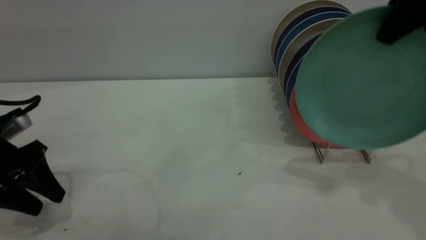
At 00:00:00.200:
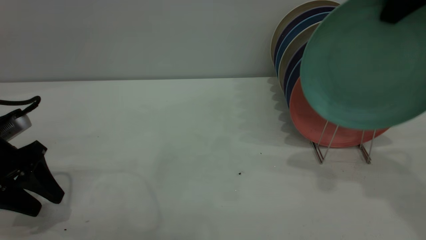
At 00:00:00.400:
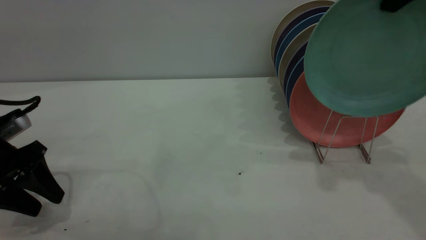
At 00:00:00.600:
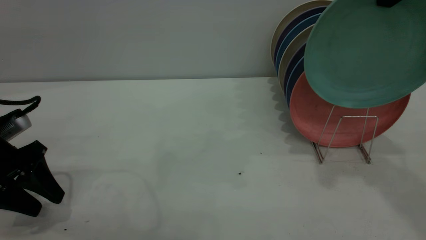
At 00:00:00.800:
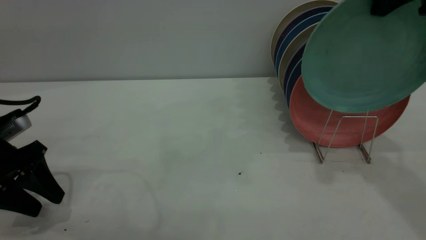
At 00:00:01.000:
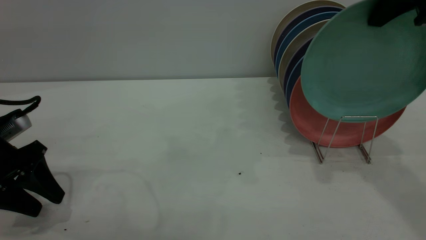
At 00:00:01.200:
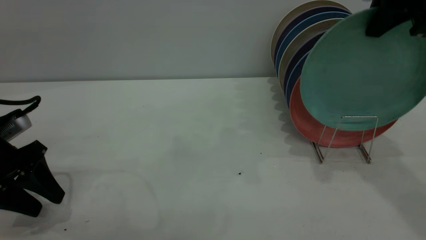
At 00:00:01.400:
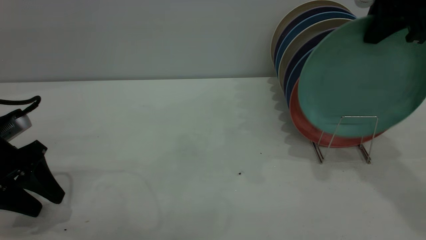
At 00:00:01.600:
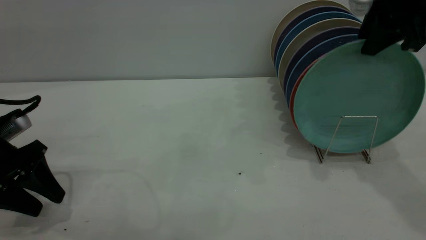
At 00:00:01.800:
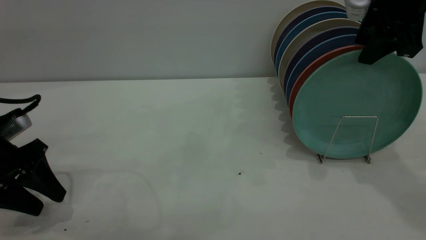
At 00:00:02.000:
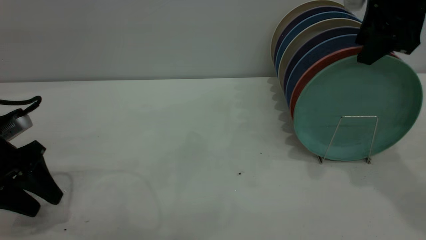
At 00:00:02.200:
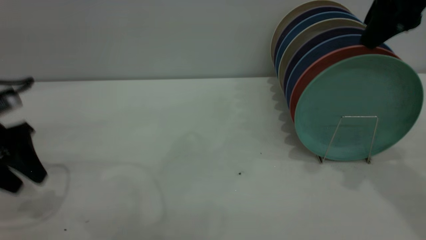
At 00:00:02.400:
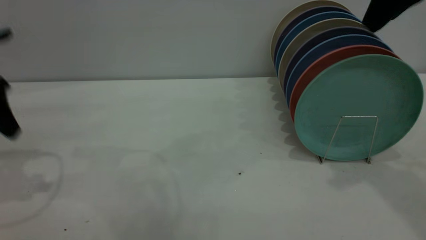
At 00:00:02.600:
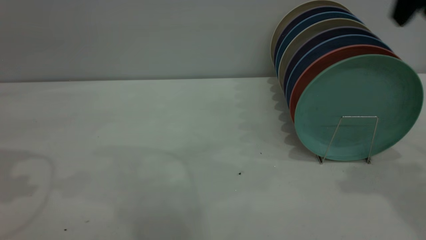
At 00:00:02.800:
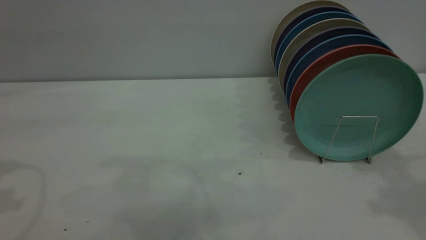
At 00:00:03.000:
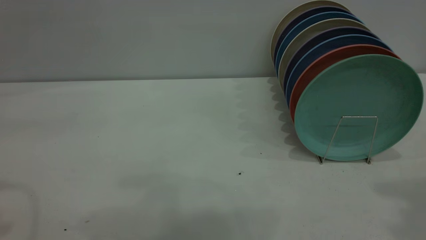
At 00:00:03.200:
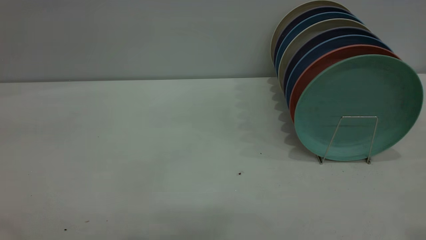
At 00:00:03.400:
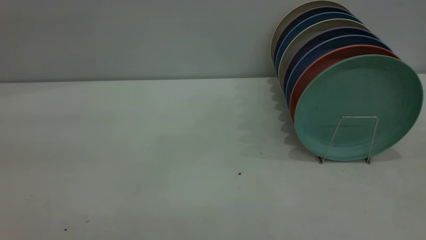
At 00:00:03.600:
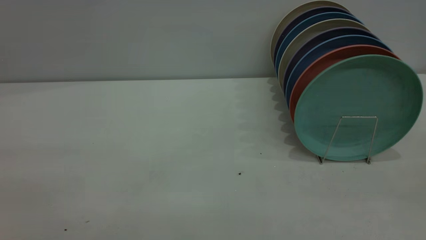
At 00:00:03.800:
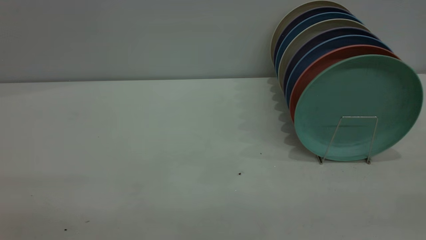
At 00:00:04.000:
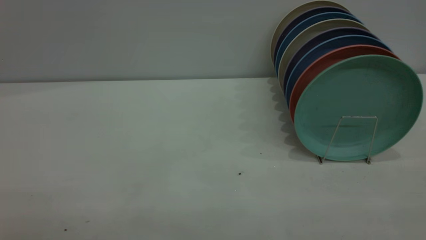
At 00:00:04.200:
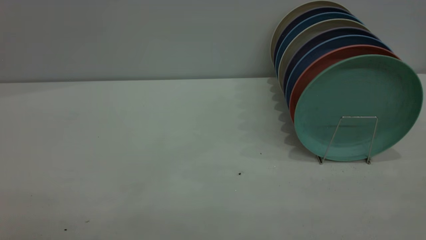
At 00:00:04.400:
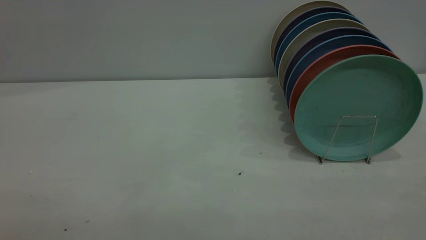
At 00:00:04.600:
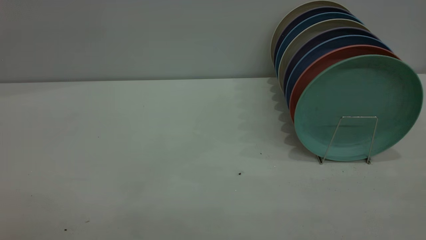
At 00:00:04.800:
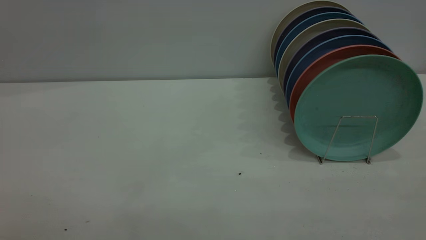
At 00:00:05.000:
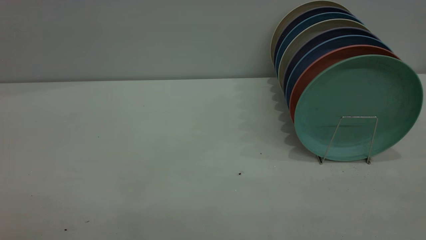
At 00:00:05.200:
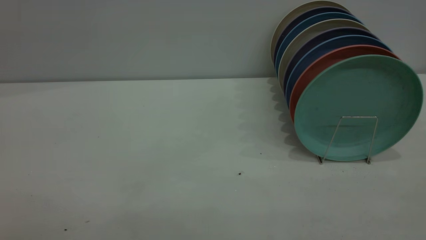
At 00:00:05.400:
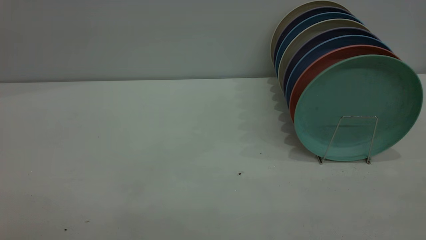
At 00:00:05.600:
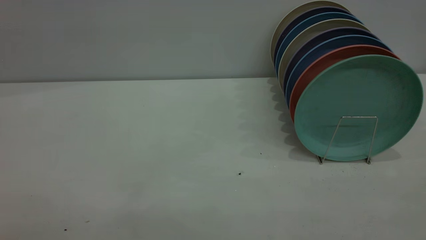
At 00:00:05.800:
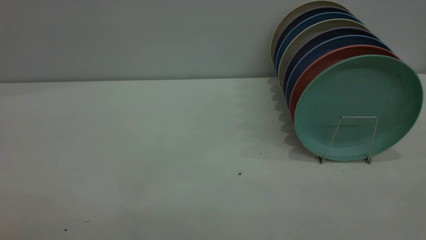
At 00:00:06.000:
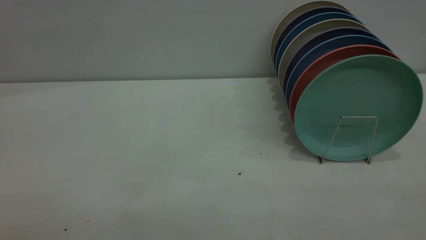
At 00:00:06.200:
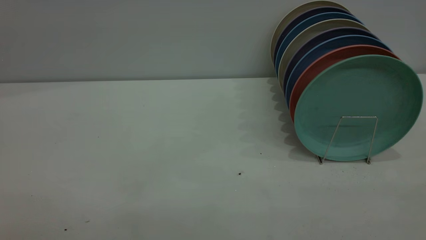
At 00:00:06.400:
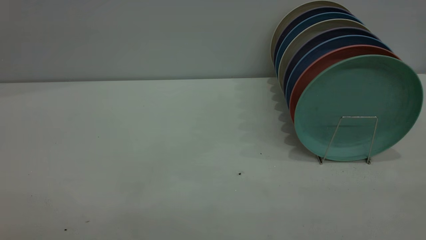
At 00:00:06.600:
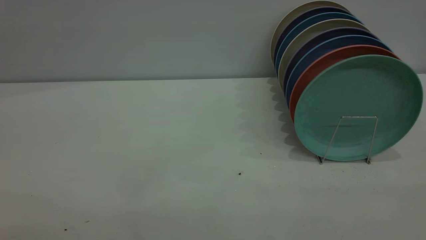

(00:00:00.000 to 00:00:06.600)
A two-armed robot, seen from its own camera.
Task of the whole recording: the left gripper grasp the green plate, the left gripper pass the green plate to the right gripper, and the right gripper place the green plate on the plate rack.
Step, 00:00:00.000 - 00:00:02.000: Place the plate on the shelf.
00:00:00.000 - 00:00:01.600: The right gripper changes place by some 5 cm, and opens.
00:00:01.600 - 00:00:03.200: The left gripper shifts about 35 cm upward; the right gripper heads backward and upward, covering about 30 cm, and opens.
